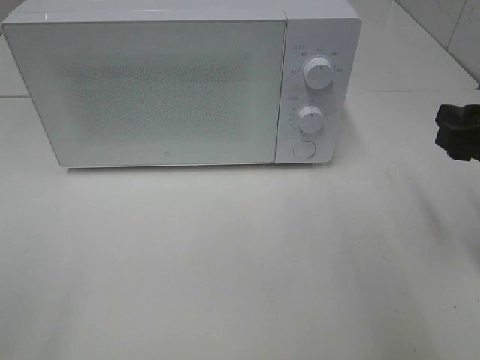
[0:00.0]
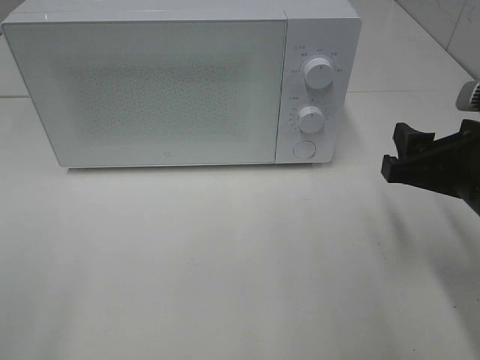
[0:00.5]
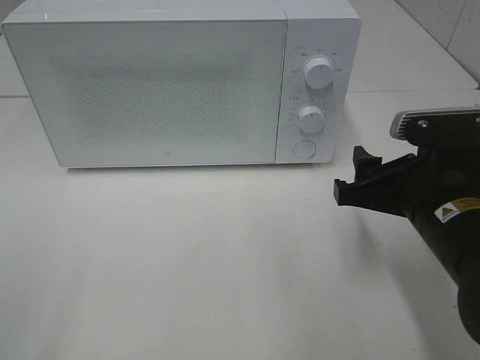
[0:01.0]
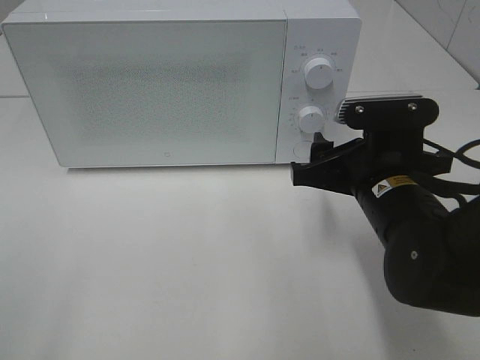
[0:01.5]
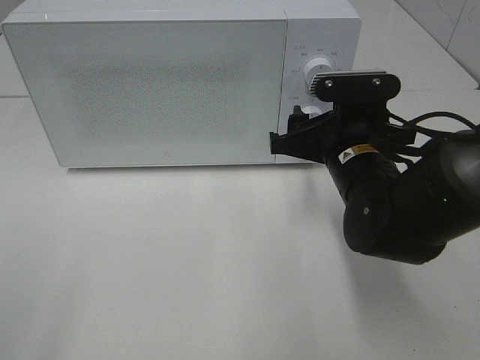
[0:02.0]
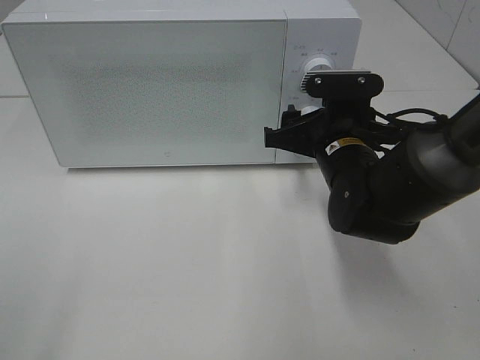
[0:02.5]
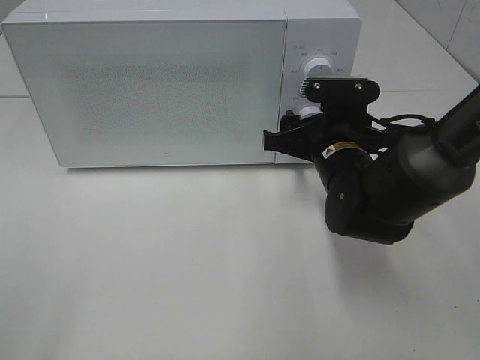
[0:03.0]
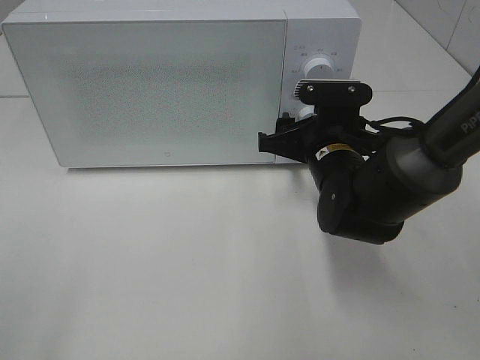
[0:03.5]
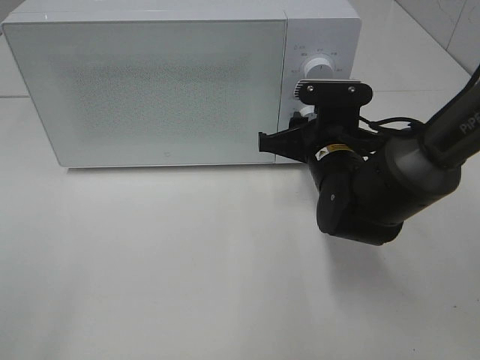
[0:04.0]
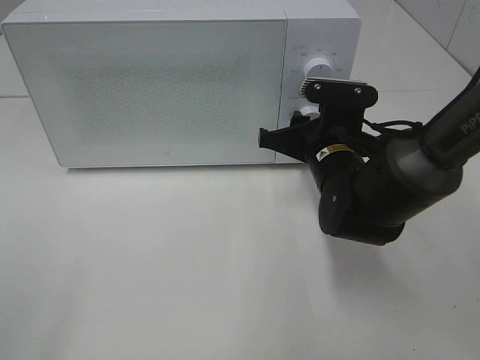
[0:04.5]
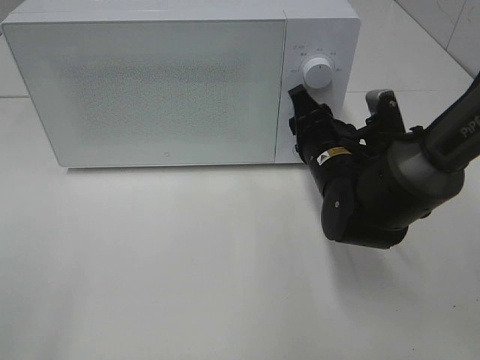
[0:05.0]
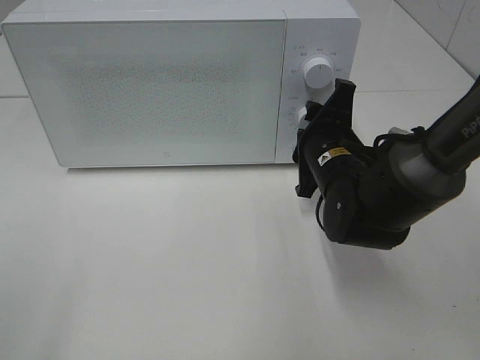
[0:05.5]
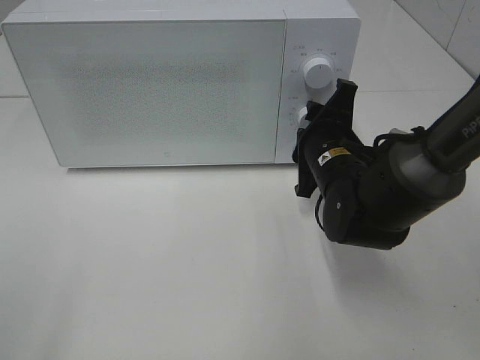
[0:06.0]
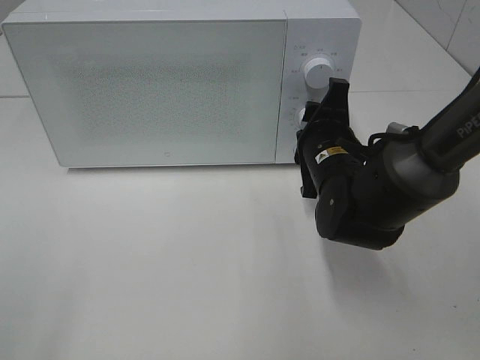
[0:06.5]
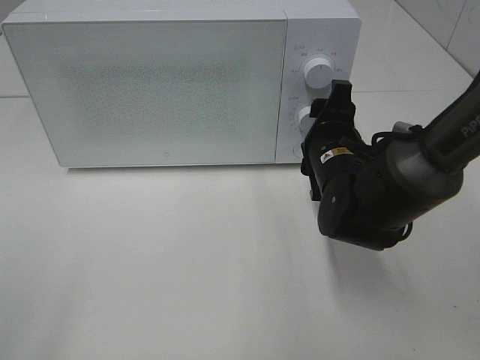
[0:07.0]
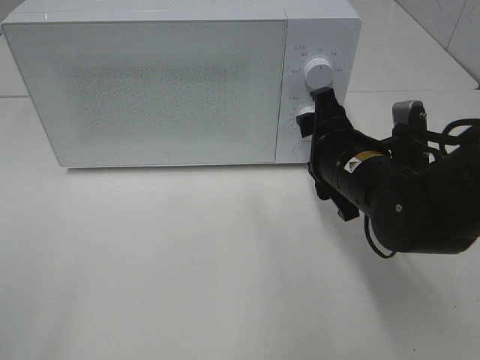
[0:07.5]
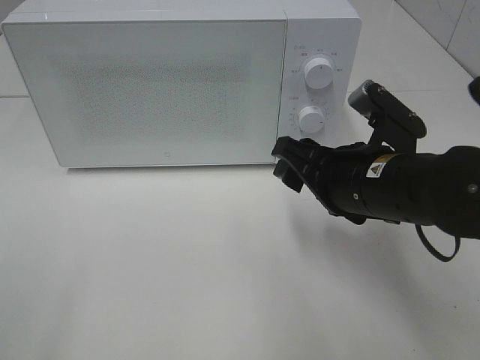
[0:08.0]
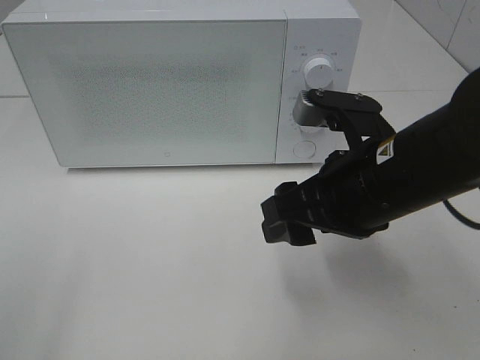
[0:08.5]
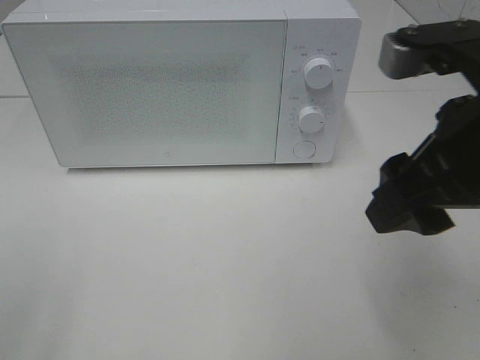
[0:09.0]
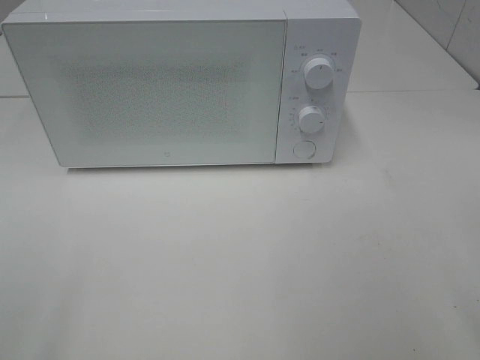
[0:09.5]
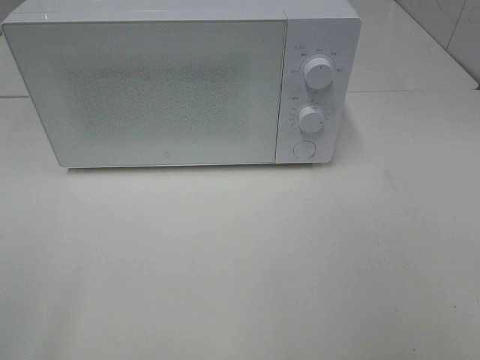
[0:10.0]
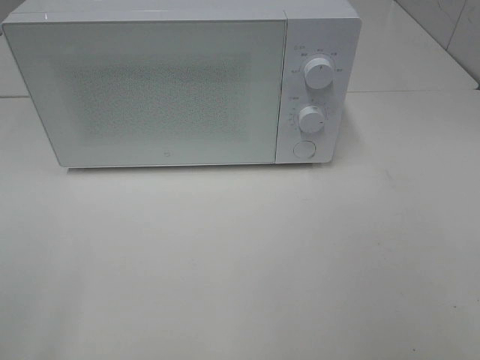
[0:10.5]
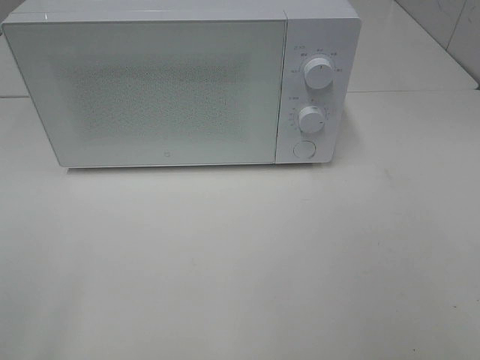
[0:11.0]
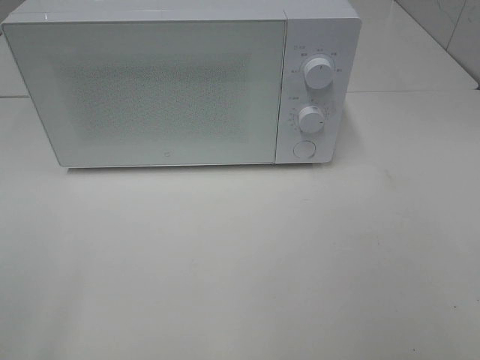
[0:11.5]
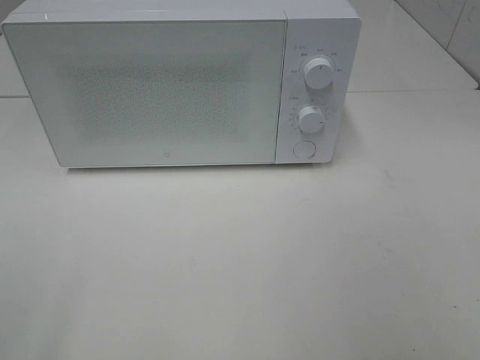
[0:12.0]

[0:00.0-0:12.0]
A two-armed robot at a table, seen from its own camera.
Task of the whole recording: Heat the burger.
Step, 0.0 to 6.5 s: Right hand: twist timer button.
0.0 to 2.0 s: The right gripper travels to the left, forward and downward by about 15 cm.
2.0 to 4.0 s: The right gripper shifts by some 5 cm.
6.0 to 8.0 s: The right gripper heads backward, covering approximately 10 cm.
8.0 to 10.0 s: The right gripper is displaced backward, to the right and upward by approximately 30 cm.

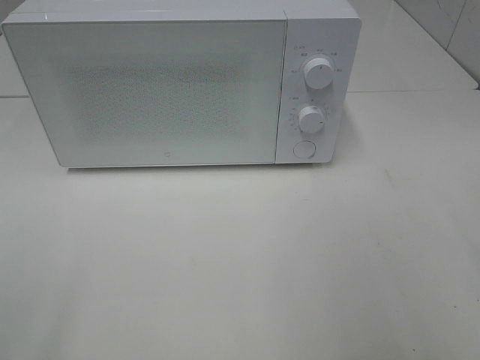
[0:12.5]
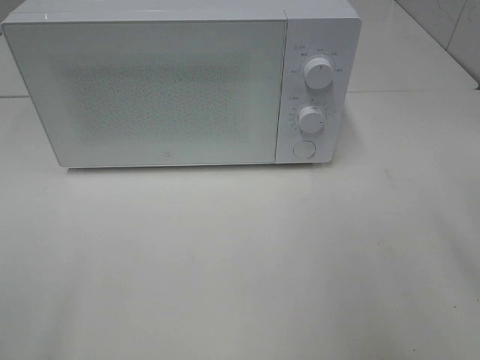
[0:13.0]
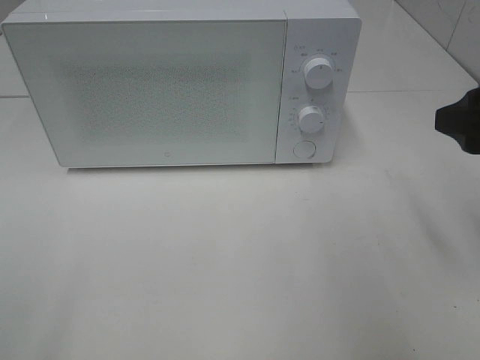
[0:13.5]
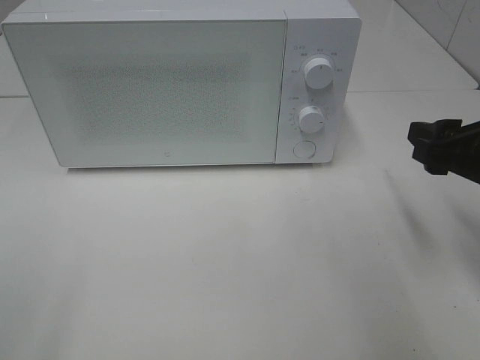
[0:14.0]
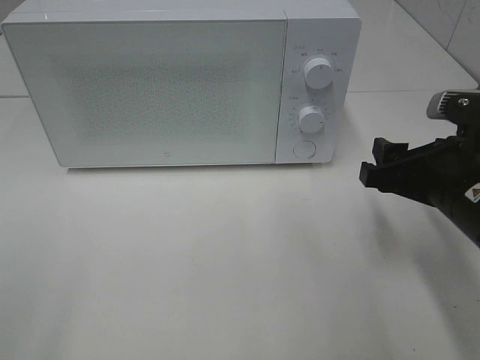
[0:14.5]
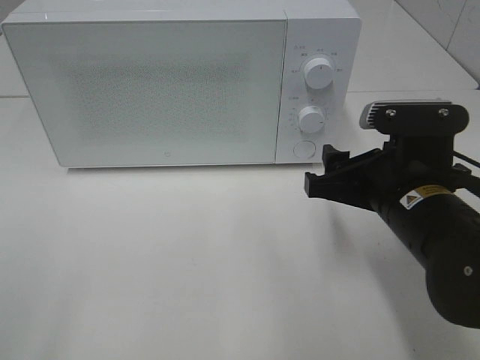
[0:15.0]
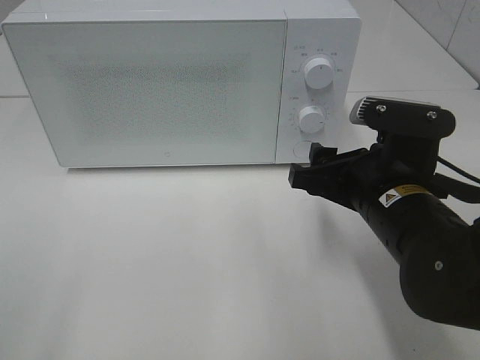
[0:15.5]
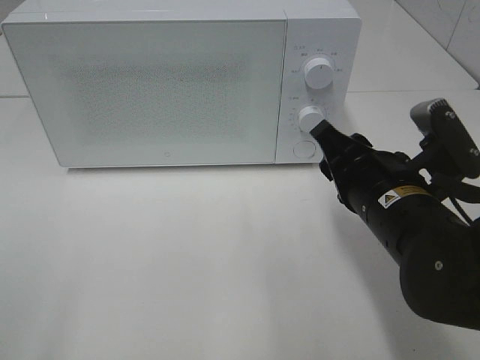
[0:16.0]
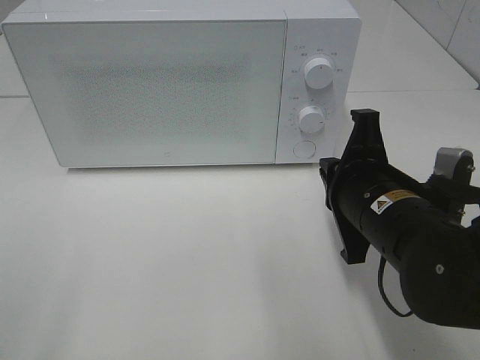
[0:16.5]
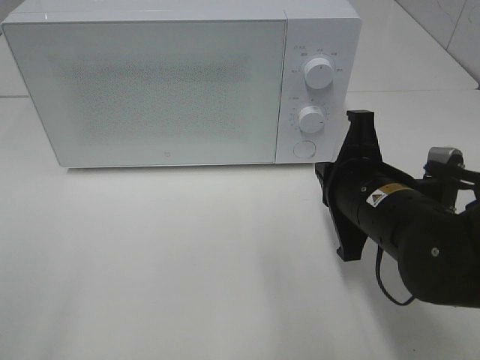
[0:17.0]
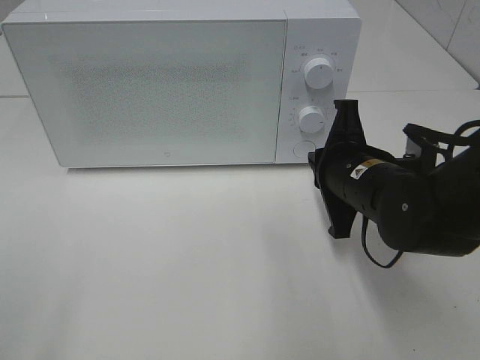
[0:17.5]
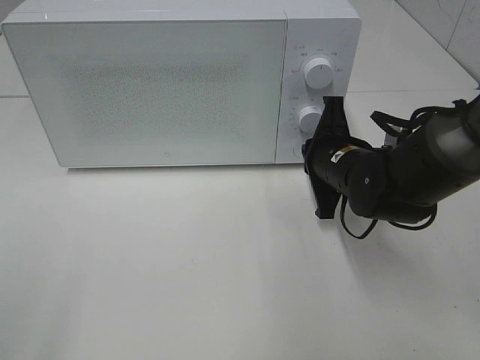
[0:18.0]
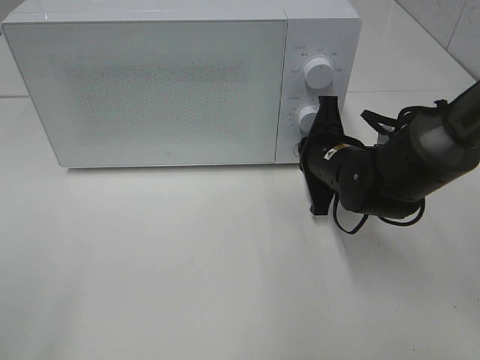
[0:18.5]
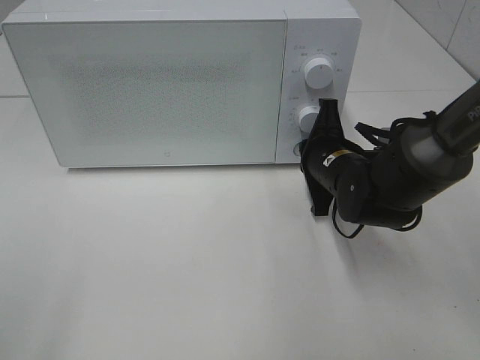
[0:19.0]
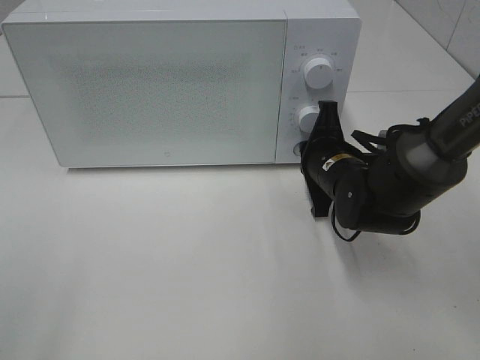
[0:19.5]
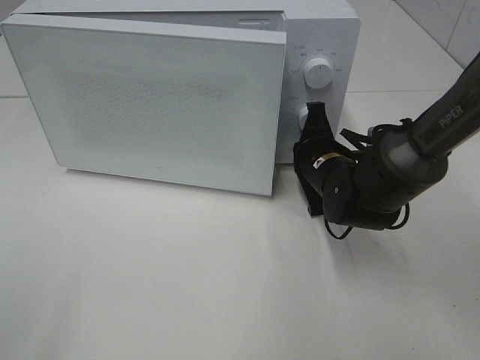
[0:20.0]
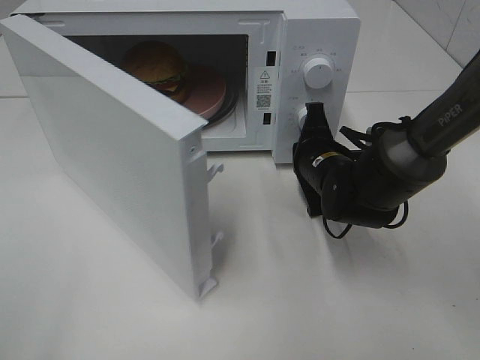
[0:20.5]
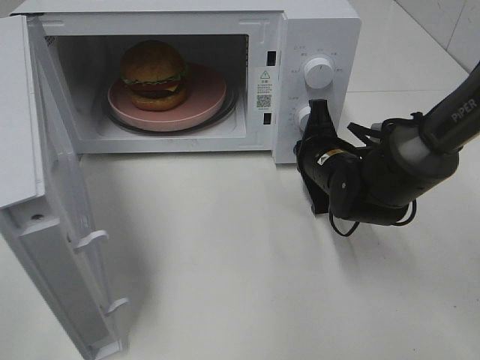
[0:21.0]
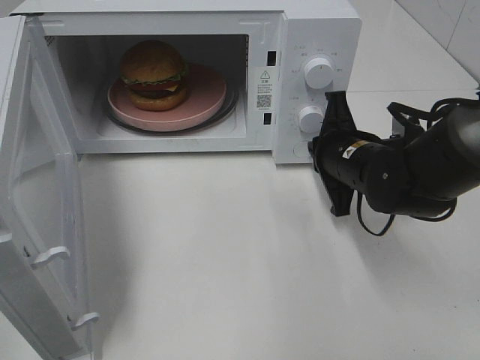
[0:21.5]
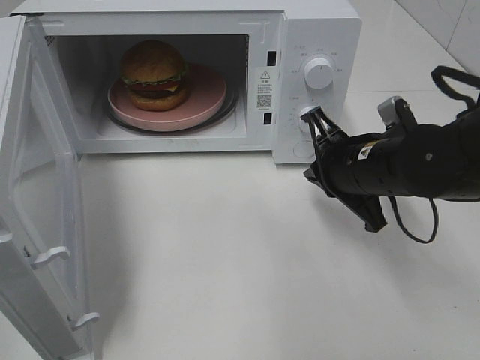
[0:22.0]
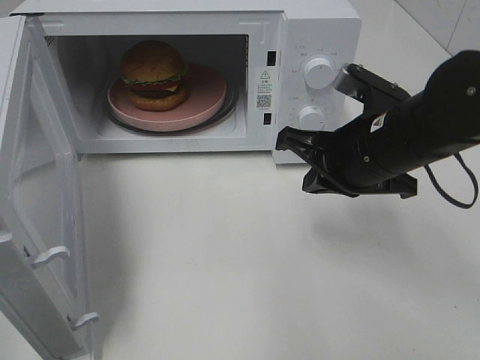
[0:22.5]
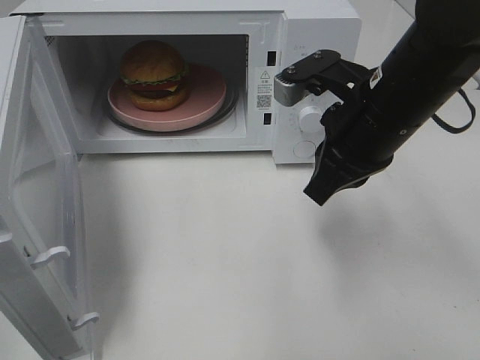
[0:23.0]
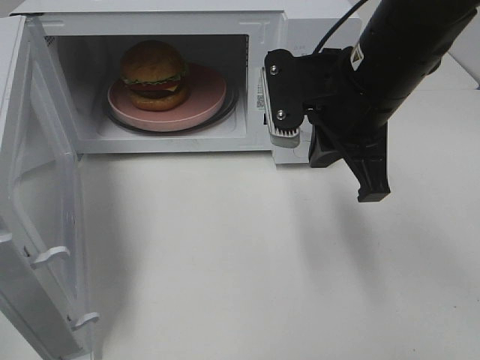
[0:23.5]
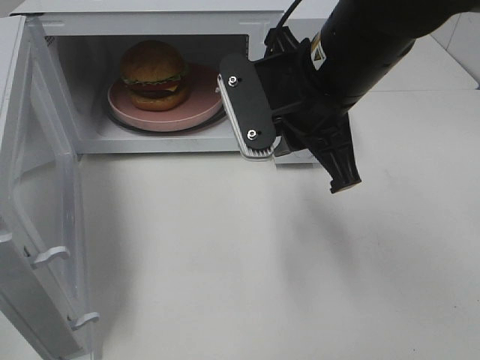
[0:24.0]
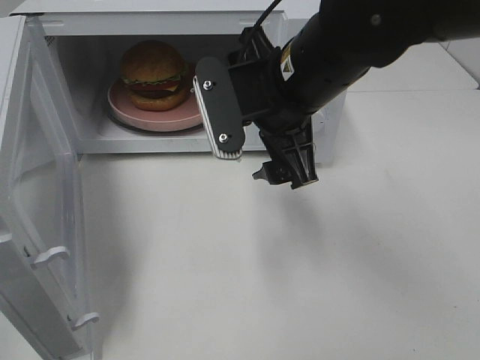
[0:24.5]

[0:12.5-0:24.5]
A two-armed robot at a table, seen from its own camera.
Task of the whole recording: Heat the burger.
Step, 12.5 to 21.0 s: Right hand: press the switch.
12.5 to 14.5 s: The right gripper goes approximately 20 cm downward, forward and to the left.
14.5 to 16.5 s: The right gripper goes about 10 cm to the left, and closes up.
16.5 to 18.5 s: The right gripper goes some 15 cm forward and downward.
20.5 to 22.5 s: The right gripper is displaced upward and backward by about 15 cm.
22.5 to 24.5 s: The right gripper moves to the left and upward, some 10 cm, and opens up.

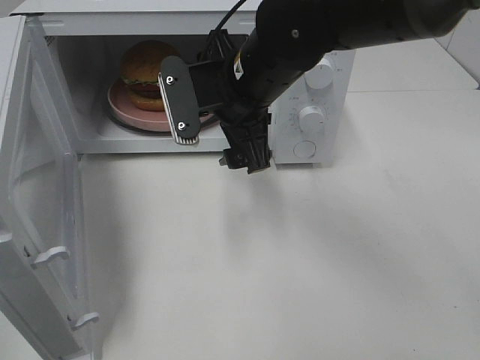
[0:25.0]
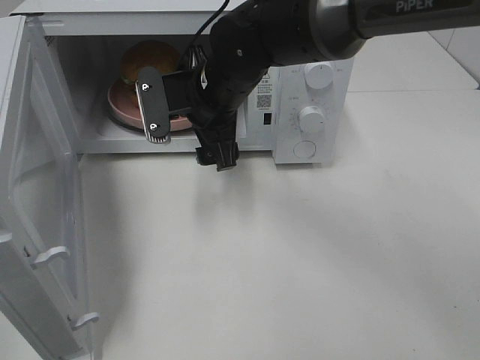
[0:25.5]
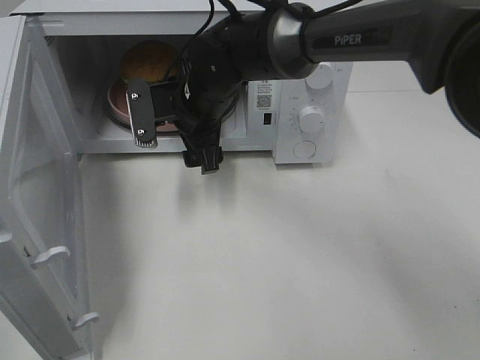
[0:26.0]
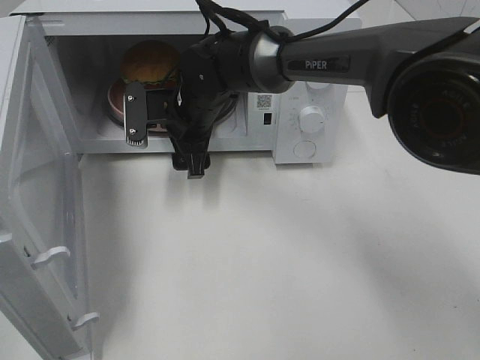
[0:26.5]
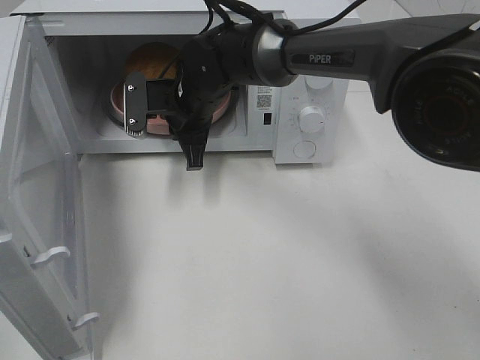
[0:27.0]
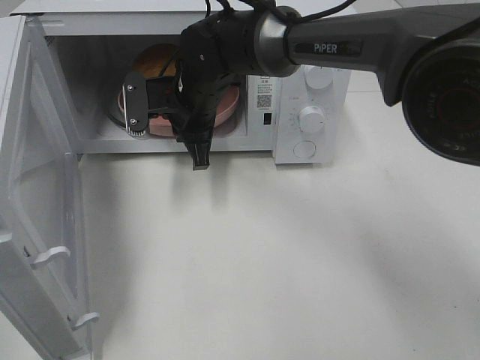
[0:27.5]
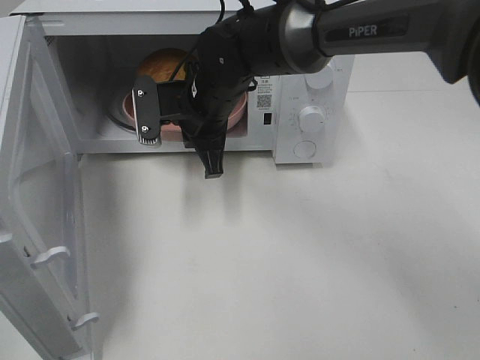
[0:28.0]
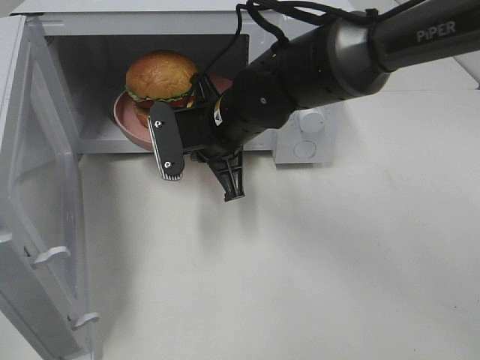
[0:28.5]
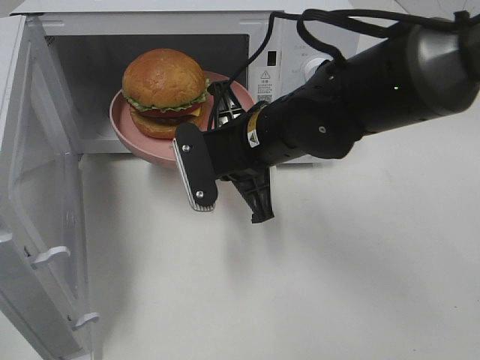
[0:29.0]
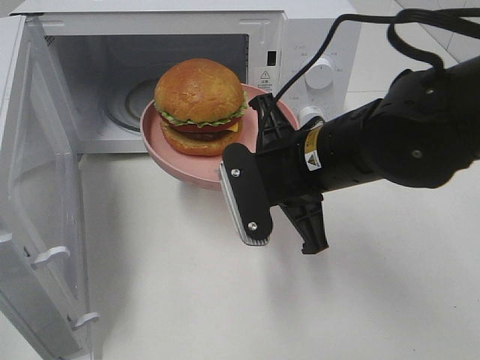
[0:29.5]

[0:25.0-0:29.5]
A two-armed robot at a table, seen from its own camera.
Task of the whole recording: Heat the burger.
Step, 25.0 to 27.0 s: Right hand: grab the plate with the hamburger.
25.0 to 27.0 s: The right gripper shifts roughly 15 cm forward, downward and to the left, and closes.
27.0 to 29.5 s: The right gripper shifts some 20 cm backward and to the right.
